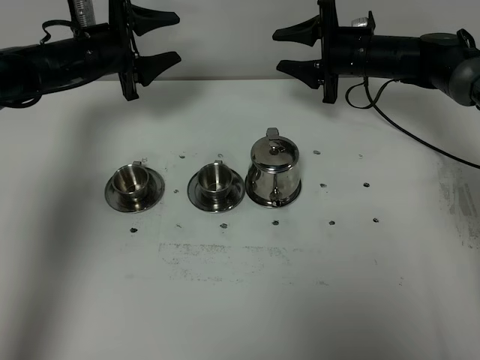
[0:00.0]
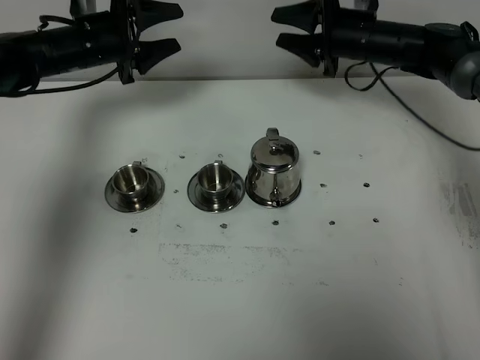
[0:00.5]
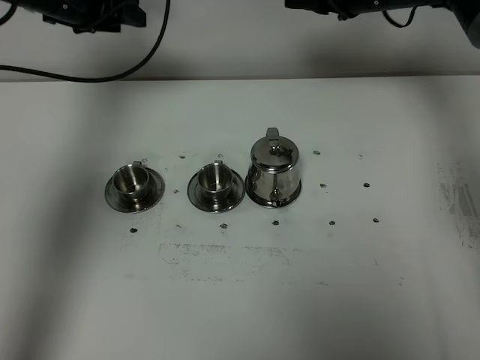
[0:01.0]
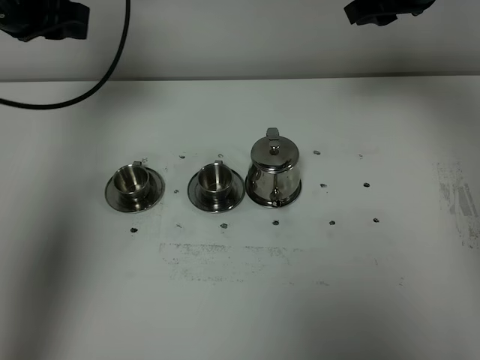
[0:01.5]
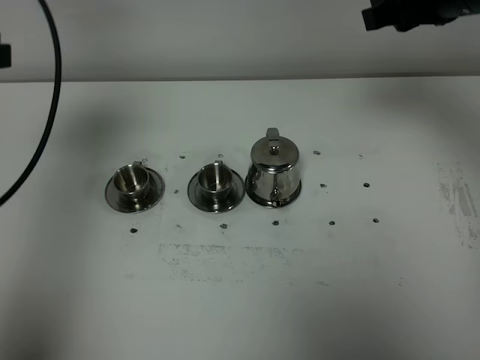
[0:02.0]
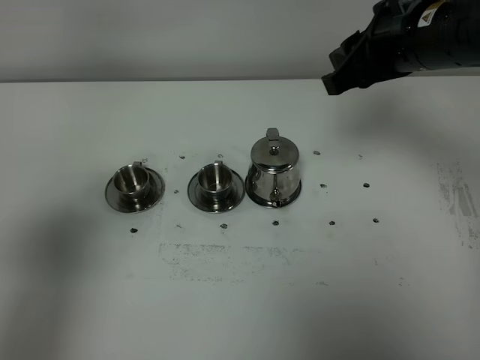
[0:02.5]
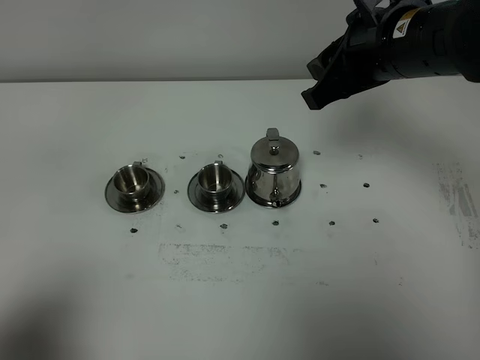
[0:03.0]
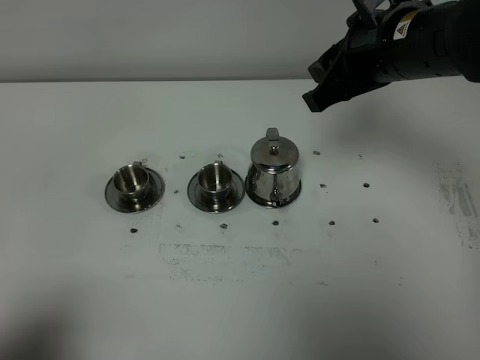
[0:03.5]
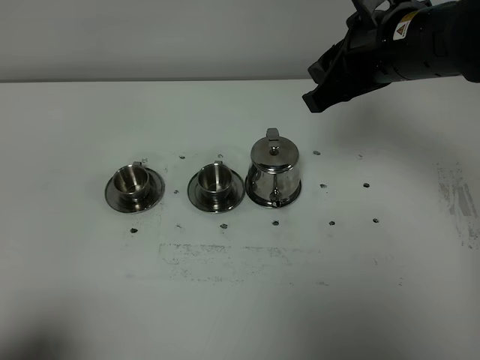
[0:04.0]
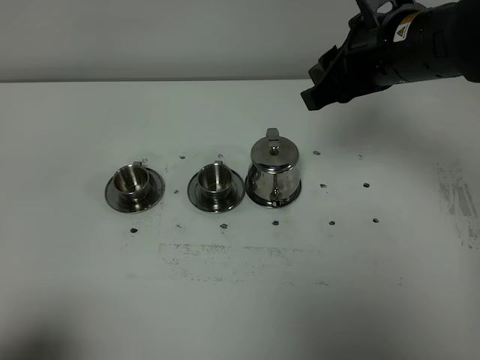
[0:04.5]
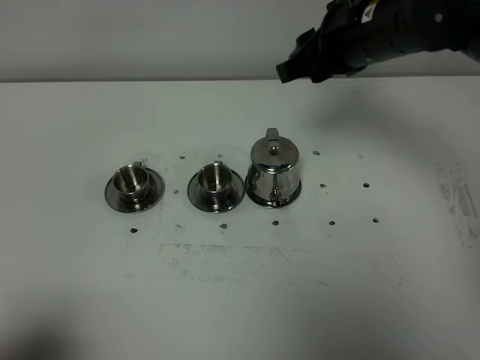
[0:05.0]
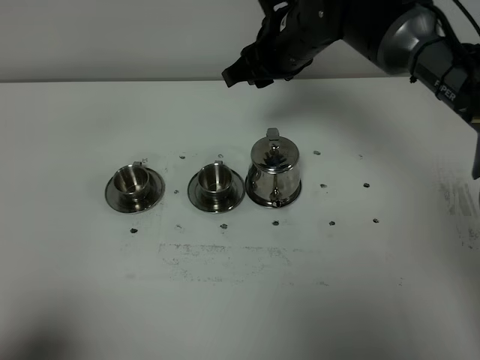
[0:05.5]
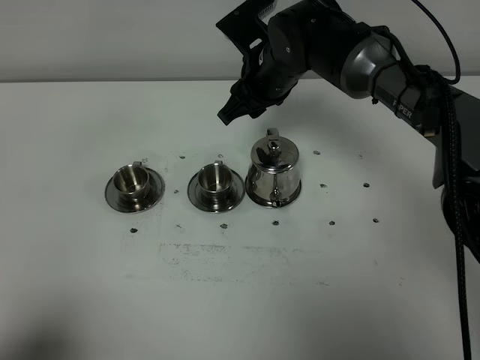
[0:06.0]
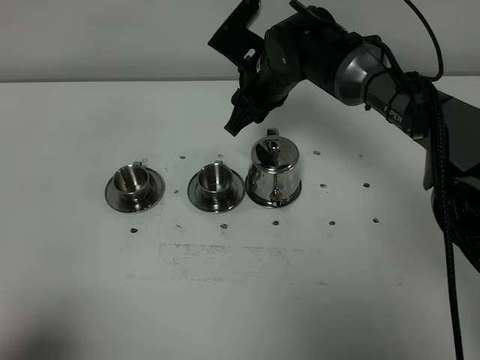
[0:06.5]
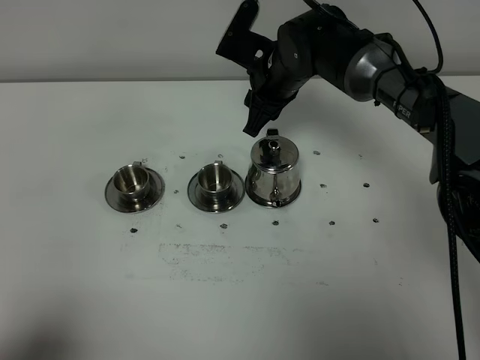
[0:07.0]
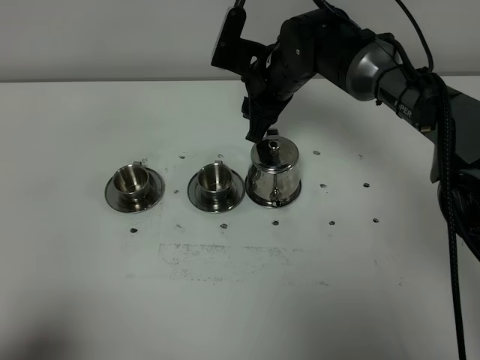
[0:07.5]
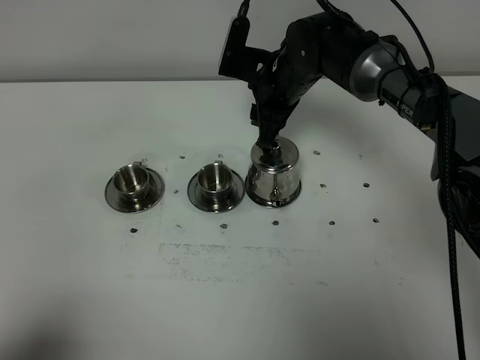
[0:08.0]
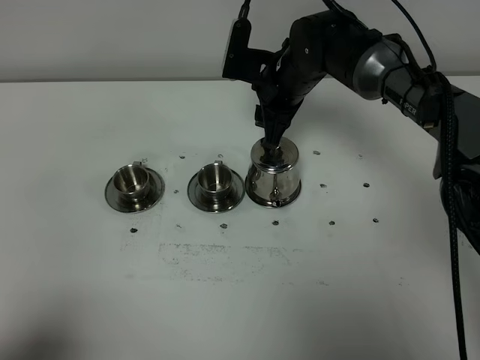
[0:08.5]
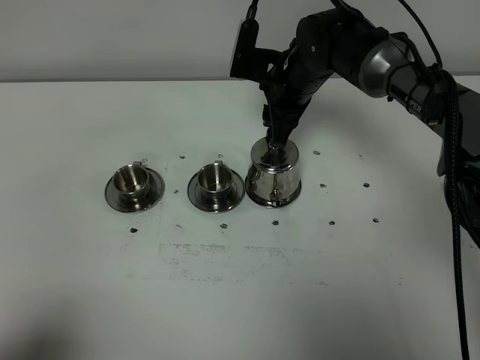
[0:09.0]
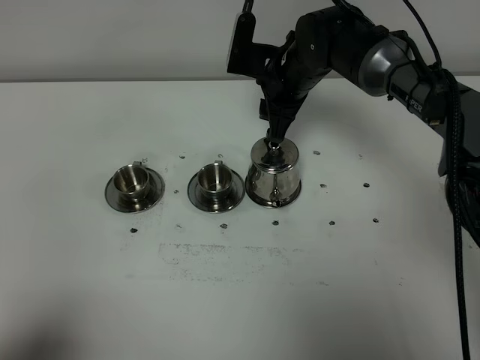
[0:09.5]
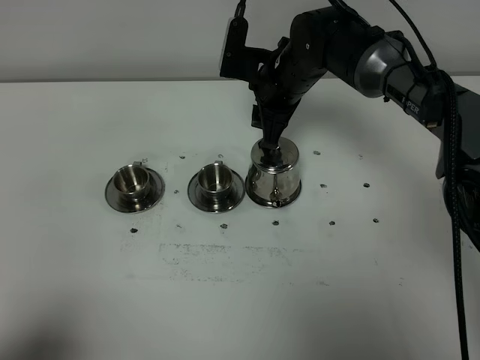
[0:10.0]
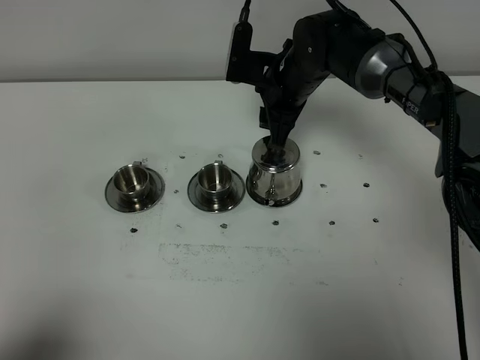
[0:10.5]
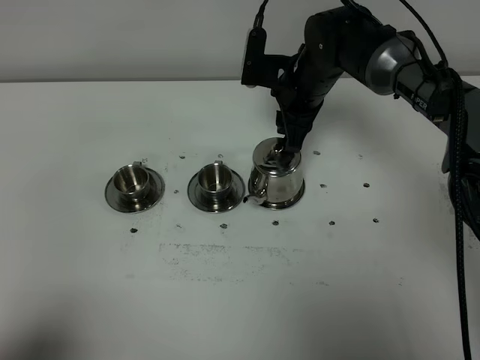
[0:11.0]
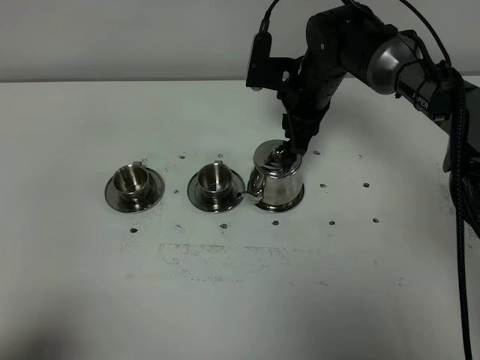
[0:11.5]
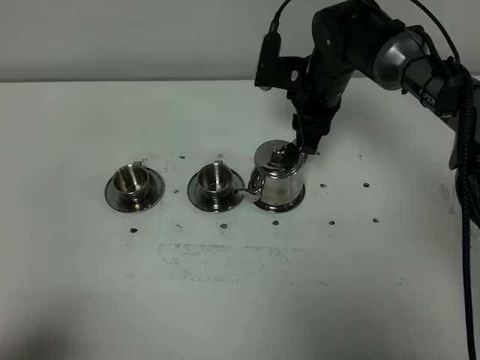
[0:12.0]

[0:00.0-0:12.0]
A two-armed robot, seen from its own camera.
Task of the whole recording: grasp the stainless steel teapot and pour the tea into the two stainless steel teacups one by one, put the stainless steel teapot back in its original place.
0:00.0 to 0:02.0: The right gripper goes roughly 25 cm upward and backward. Meanwhile the left gripper goes some 30 cm backward and upward, and closes.
0:02.0 to 0:04.0: The left gripper moves backward, roughly 30 cm; the right gripper moves to the left, some 5 cm.
0:04.0 to 0:06.0: The right gripper travels forward, downward and to the left by approximately 20 cm.
0:08.0 to 0:12.0: The grippers stay close to where they were, moving slightly.

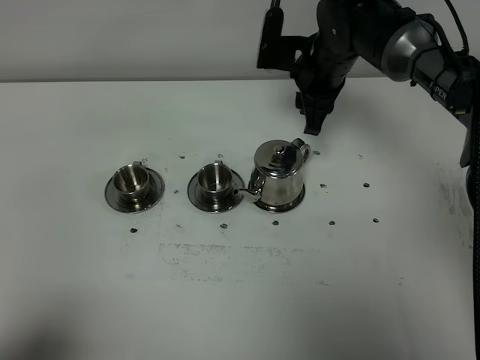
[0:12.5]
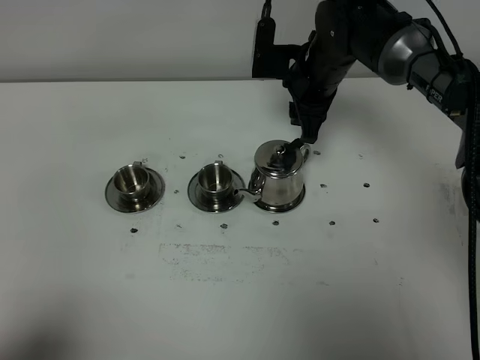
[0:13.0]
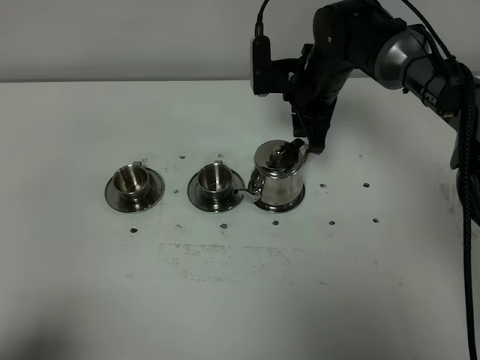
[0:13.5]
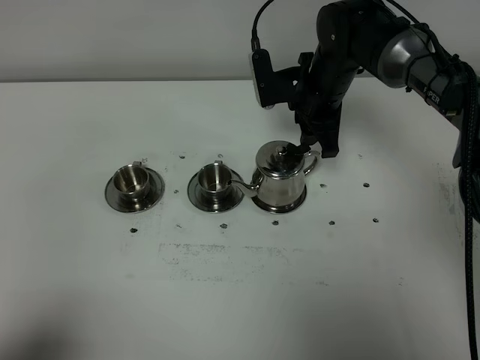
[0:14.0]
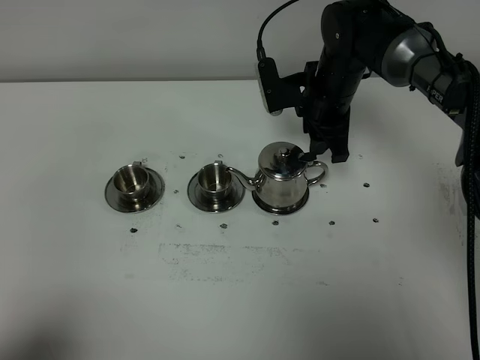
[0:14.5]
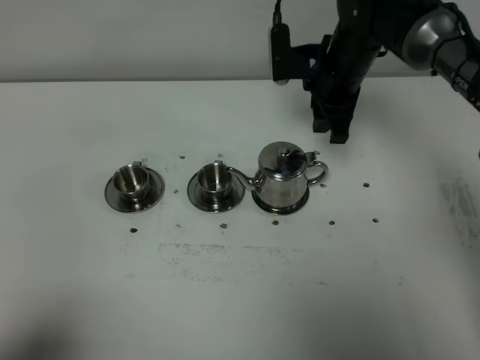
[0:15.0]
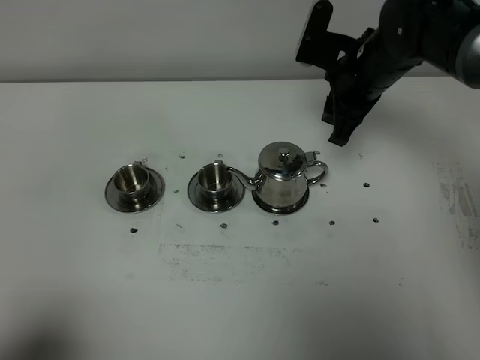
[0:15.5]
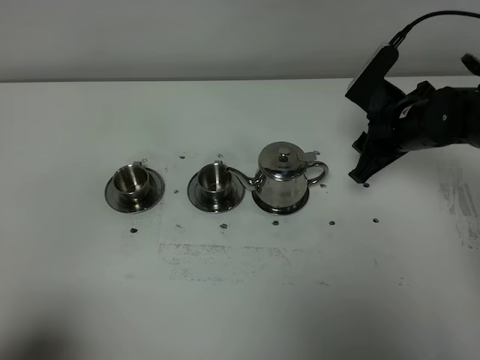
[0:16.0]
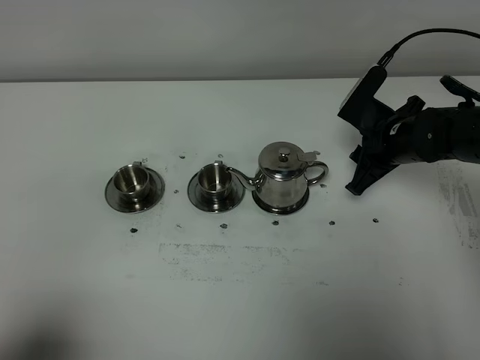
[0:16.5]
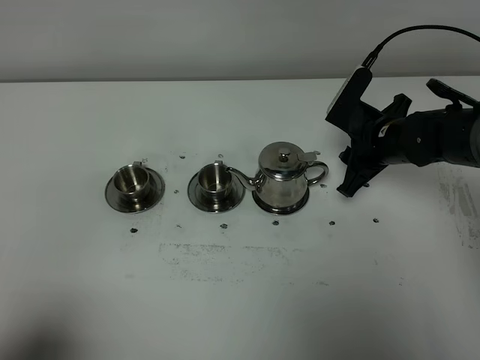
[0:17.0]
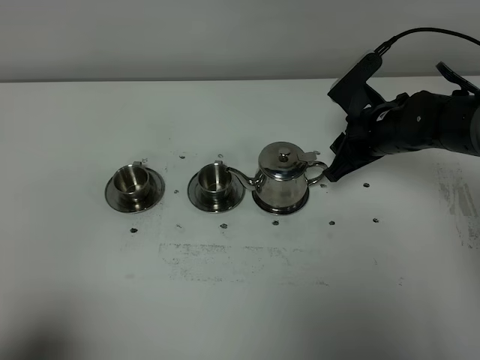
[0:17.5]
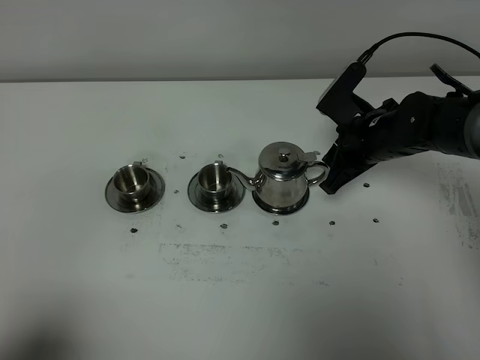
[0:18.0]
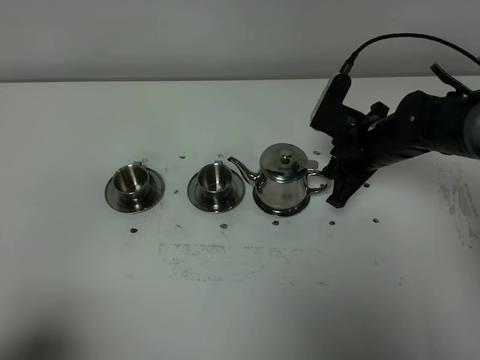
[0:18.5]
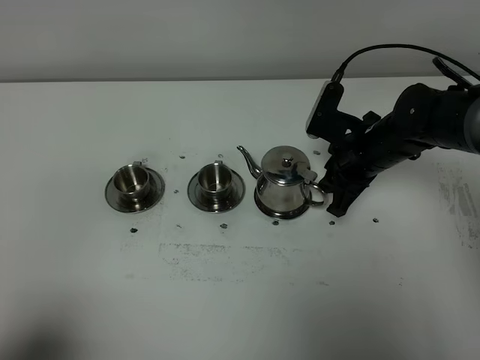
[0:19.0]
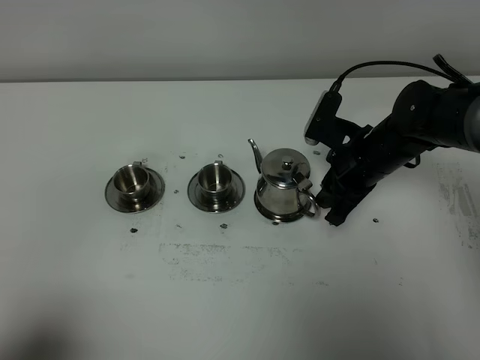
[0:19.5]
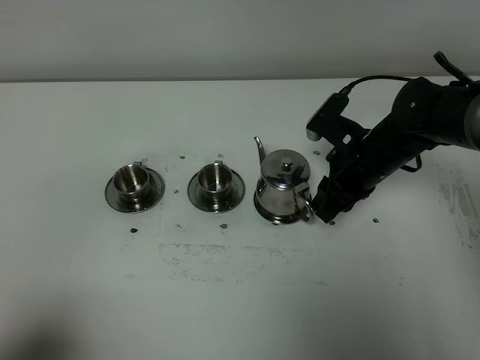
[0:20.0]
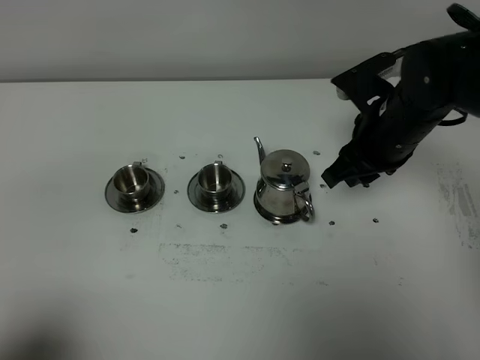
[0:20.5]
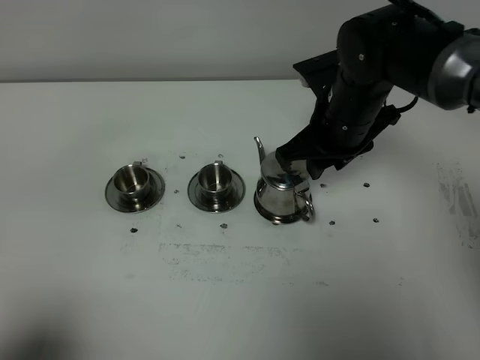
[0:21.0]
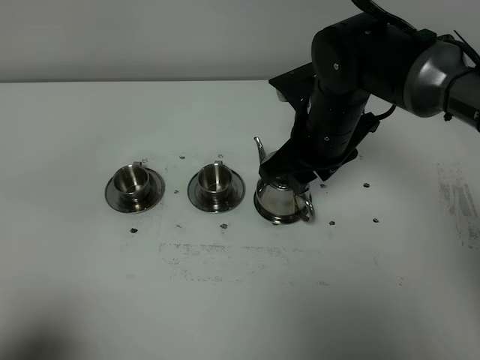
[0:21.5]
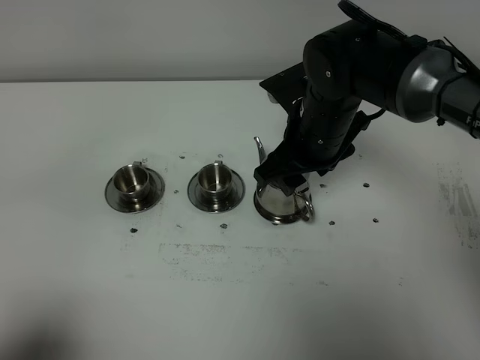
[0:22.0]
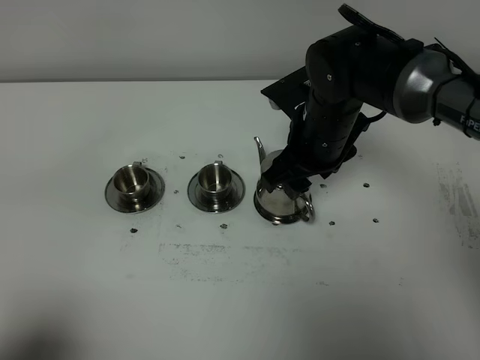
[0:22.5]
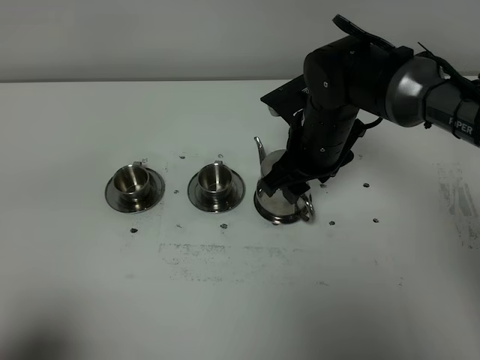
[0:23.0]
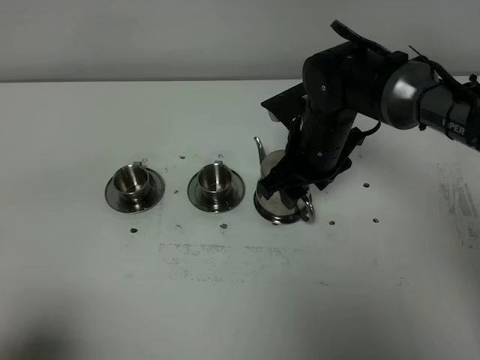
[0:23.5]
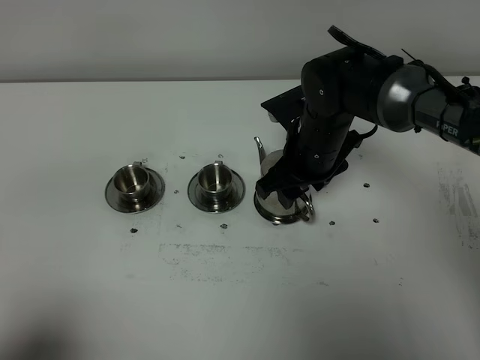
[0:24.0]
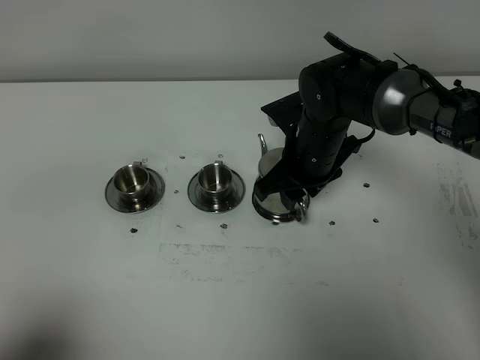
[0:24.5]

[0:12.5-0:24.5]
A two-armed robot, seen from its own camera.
Task of the whole recording: grasp the stainless steel teapot and pour the tea into the two stainless steel teacups one by one, put the stainless steel teapot back in its original place.
0:14.5 to 0:16.5: The right gripper shifts about 10 cm to the right, backward and downward.
0:16.5 to 0:18.5: The grippers stay close to where they were, moving slightly.
0:18.5 to 0:20.5: The right gripper shifts approximately 10 cm upward.
0:20.5 to 0:22.5: The right gripper shifts about 5 cm to the left, and opens up.
0:22.5 to 0:24.5: The right gripper closes.

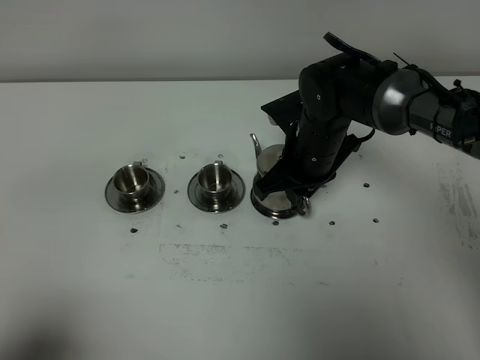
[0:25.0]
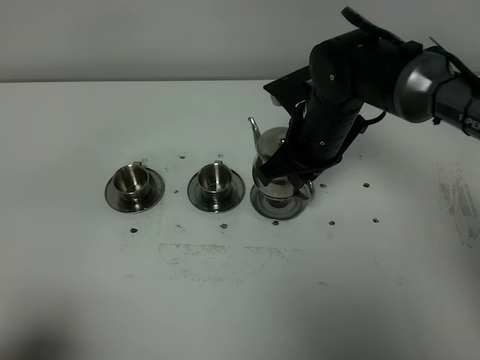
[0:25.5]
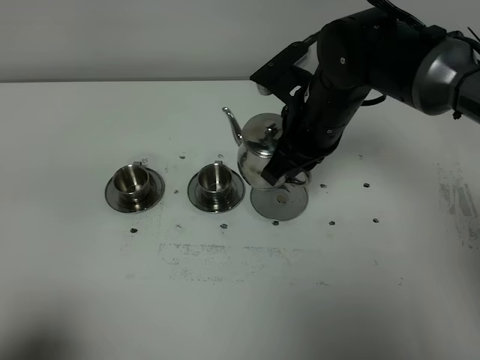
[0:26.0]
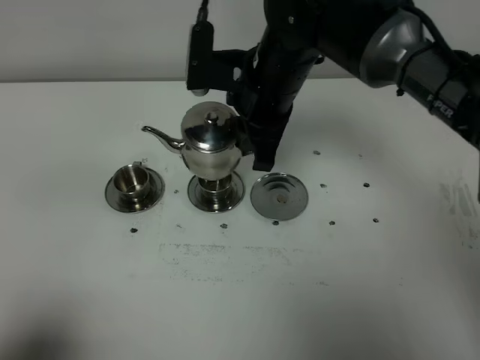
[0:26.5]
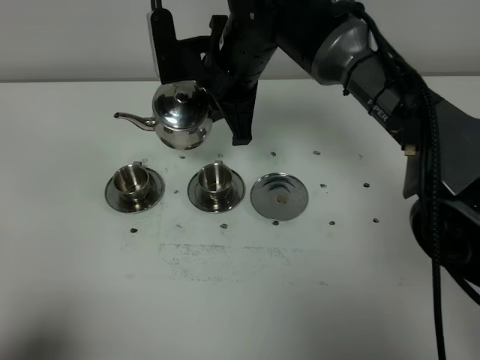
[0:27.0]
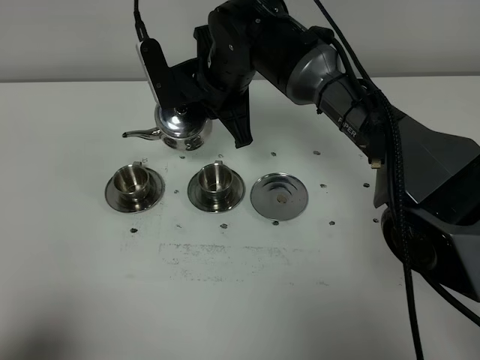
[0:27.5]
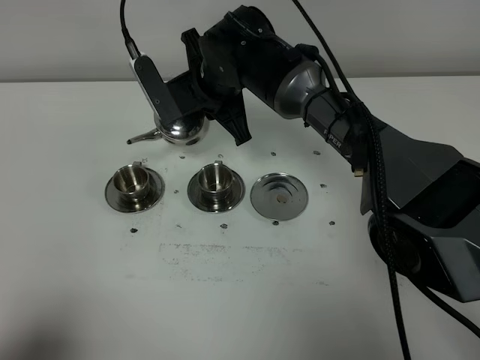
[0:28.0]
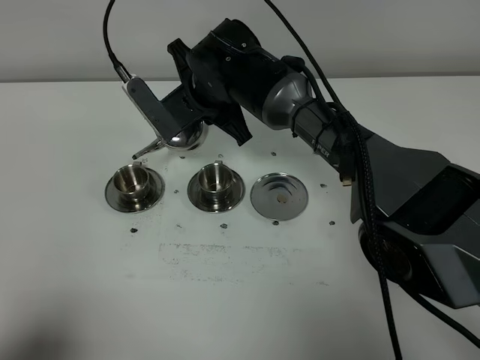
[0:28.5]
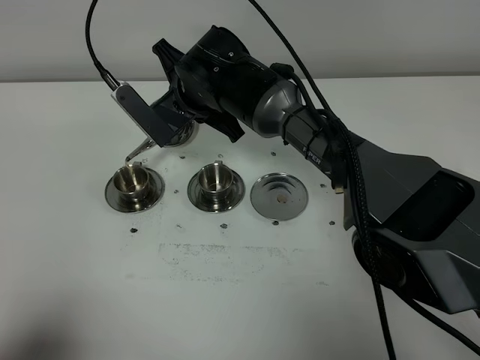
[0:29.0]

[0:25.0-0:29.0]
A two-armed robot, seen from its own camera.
Task of the whole recording: grasp the stainless steel teapot and pour the tea into the two stainless steel teacups one by one, put the stainless steel teapot back in its original place.
0:25.0 to 0:27.0: The right gripper goes about 15 cm upward and to the left.
0:27.0 to 0:29.0: The right gripper goes roughly 5 cm downward.
